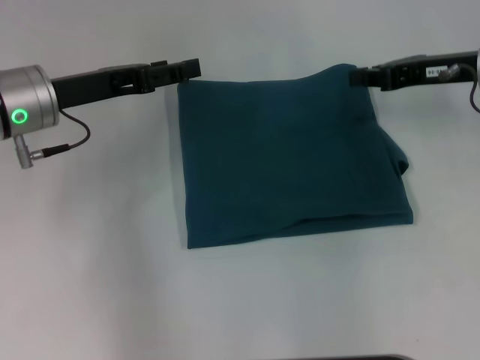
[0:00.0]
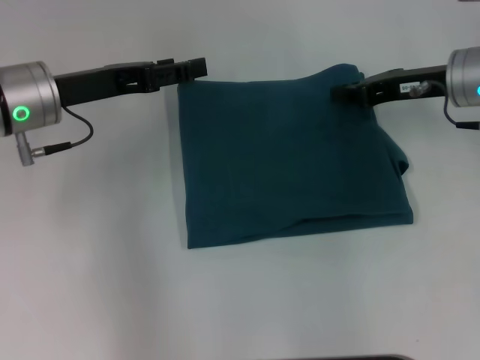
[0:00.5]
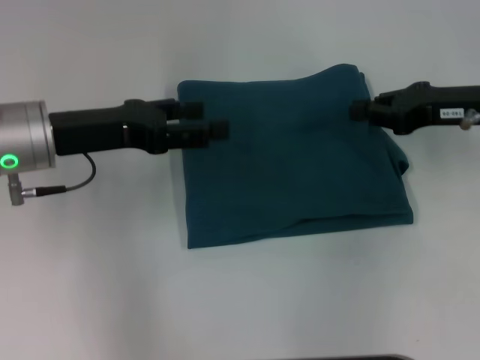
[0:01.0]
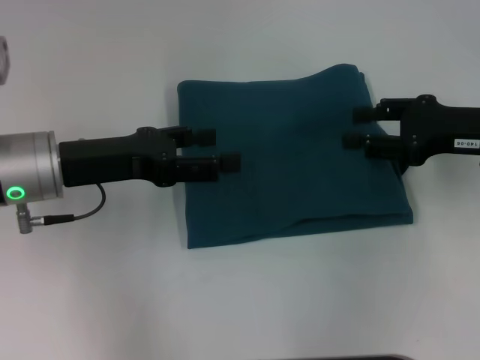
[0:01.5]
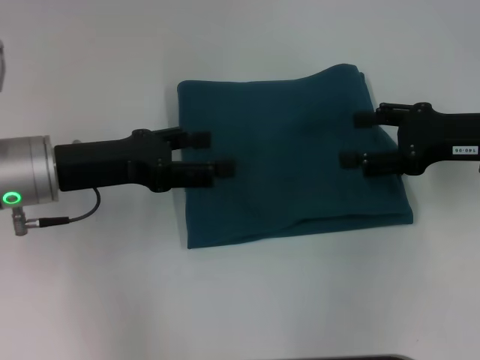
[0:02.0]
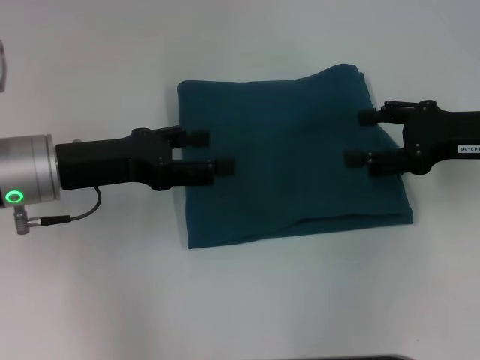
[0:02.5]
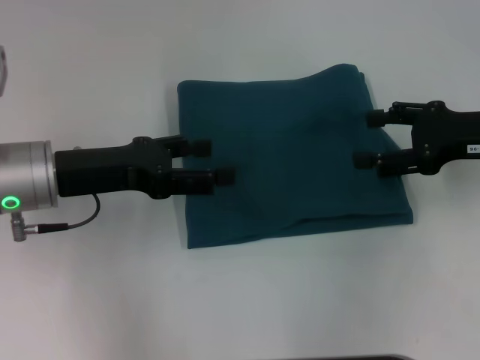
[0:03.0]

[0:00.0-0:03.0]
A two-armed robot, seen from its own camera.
0:00.0 to 0:01.5: The grippers both shift backward by some 5 cm. The right gripper opens up.
0:01.5 to 0:03.0: The right gripper opens.
